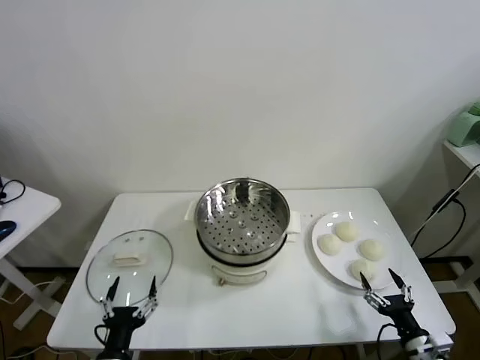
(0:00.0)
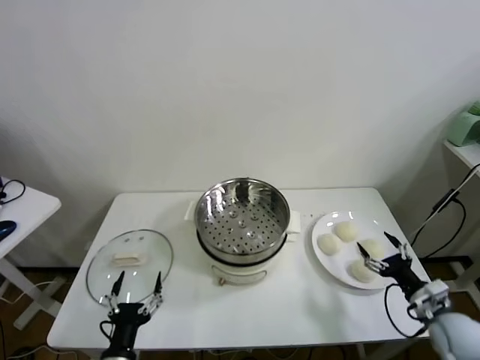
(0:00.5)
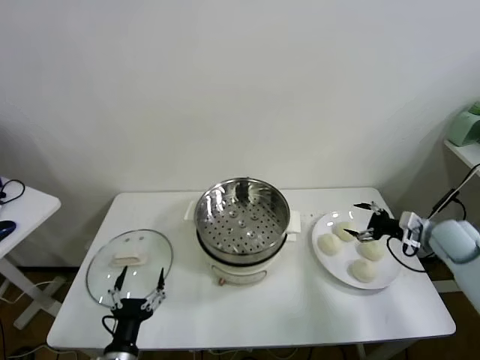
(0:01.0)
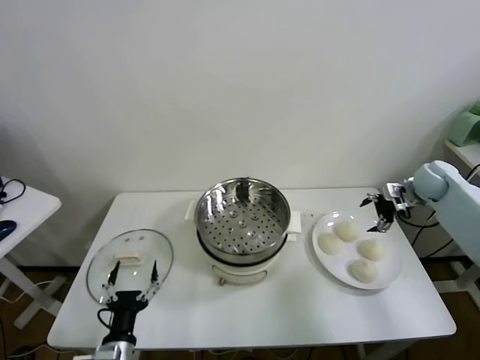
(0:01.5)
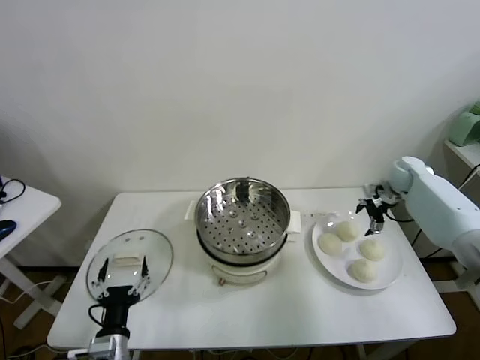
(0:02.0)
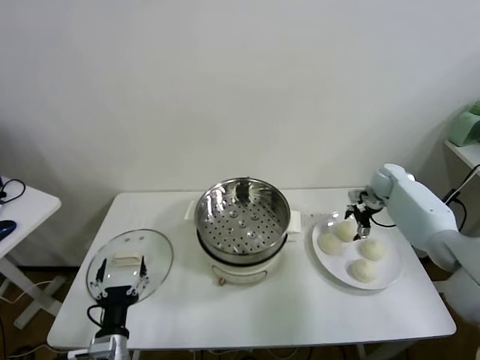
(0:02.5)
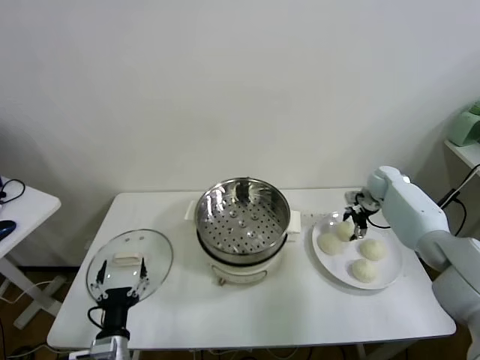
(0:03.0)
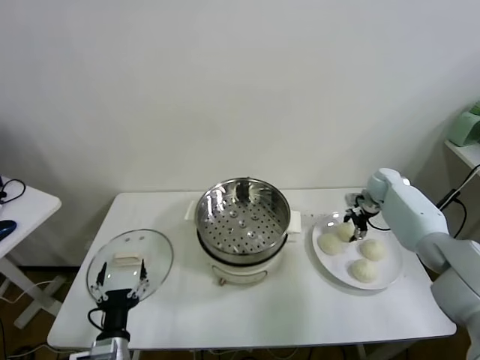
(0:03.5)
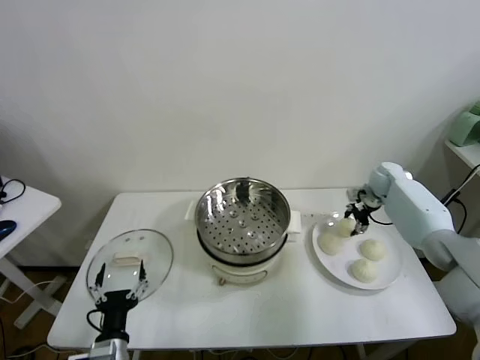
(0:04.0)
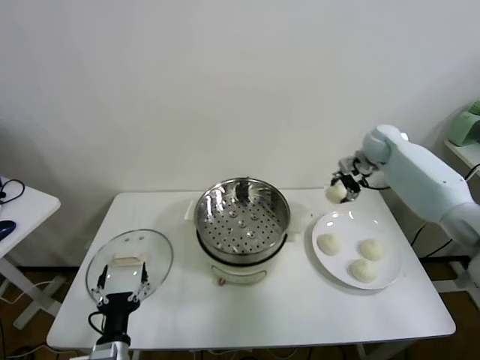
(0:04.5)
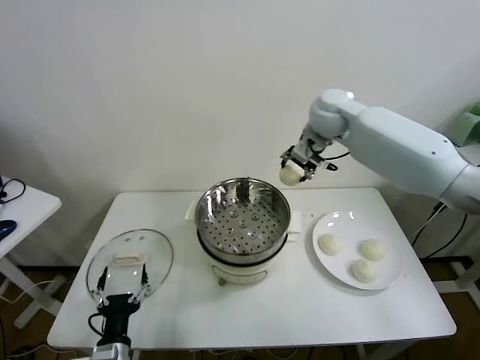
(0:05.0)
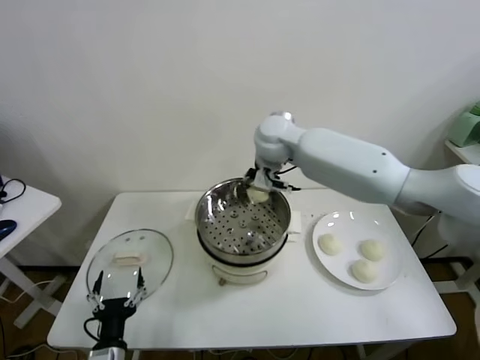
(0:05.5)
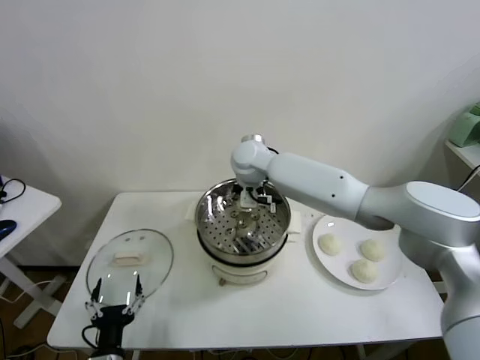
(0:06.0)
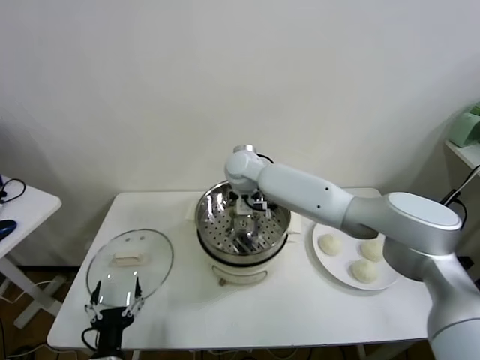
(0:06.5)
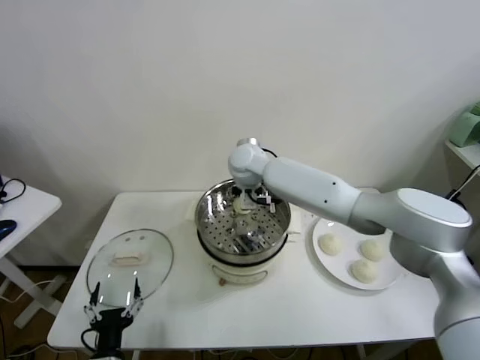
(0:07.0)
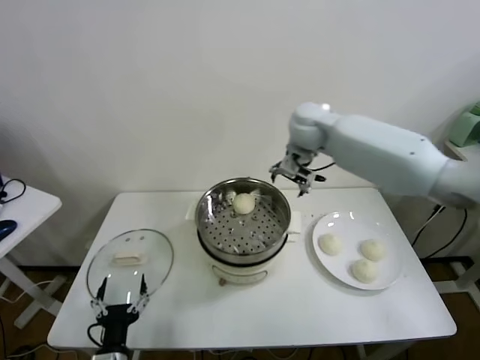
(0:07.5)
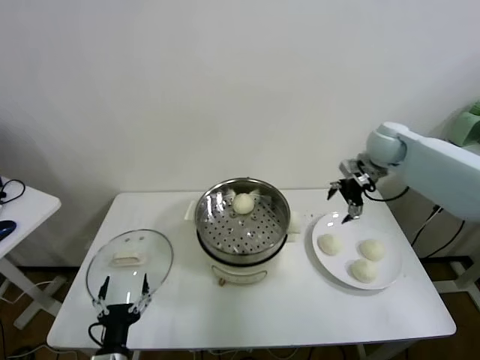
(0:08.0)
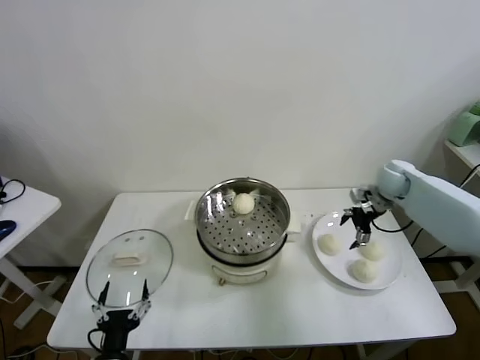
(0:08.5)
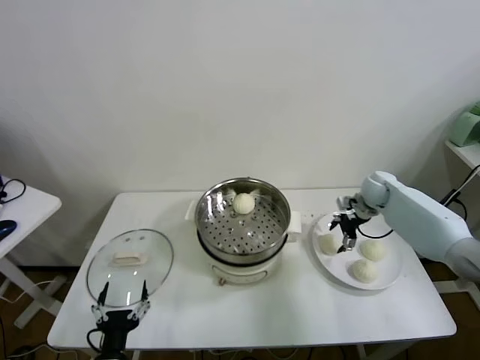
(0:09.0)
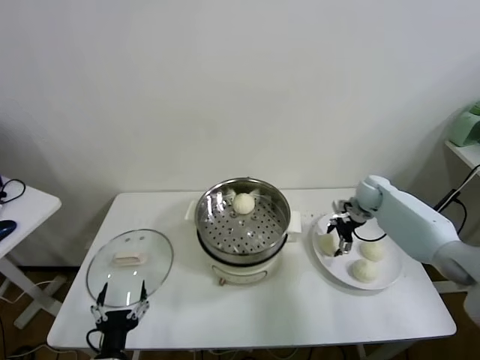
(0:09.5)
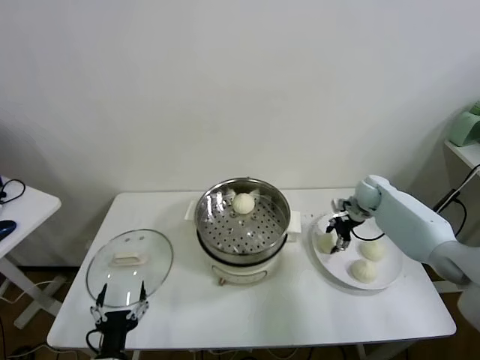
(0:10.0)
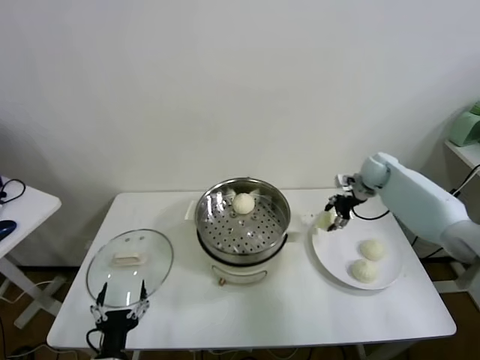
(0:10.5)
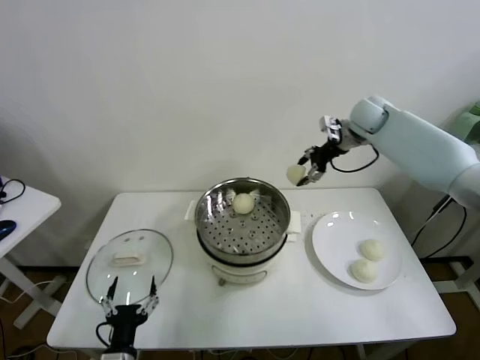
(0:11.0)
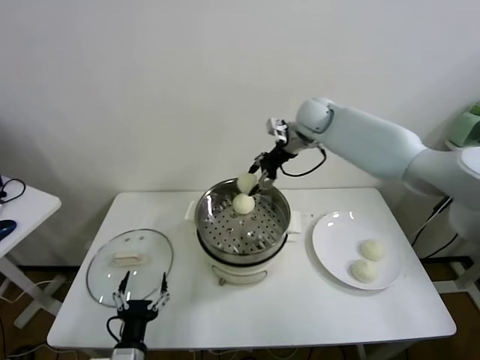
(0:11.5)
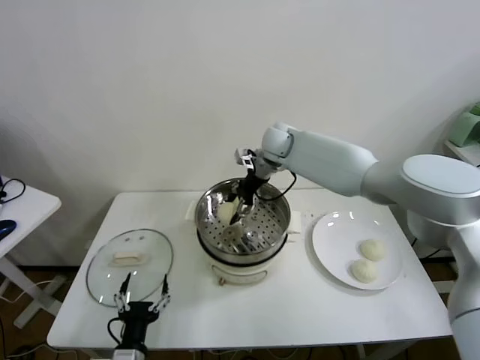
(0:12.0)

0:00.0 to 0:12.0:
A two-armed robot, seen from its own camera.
Task of the whole recording: take steamed baozi put them in steamer.
Step, 0:00.0 to 0:03.0: Grasp the baozi in the plate with right gripper.
Step, 0:03.5 to 0:07.0: Place the baozi on the steamer with right gripper.
Step, 0:07.5 to 0:09.5: Grasp the baozi in the plate with right gripper.
0:02.0 to 0:04.0: The right gripper closes.
0:04.0 to 0:06.0: The right gripper is displaced to the left by some 40 cm.
0:06.0 to 0:08.0: The right gripper moves to the right, roughly 35 cm, and opens.
0:08.0 to 0:10.0: The right gripper moves downward, roughly 15 cm, and closes.
0:10.0 to 0:12.0: The right gripper moves to the left and upward, roughly 30 cm.

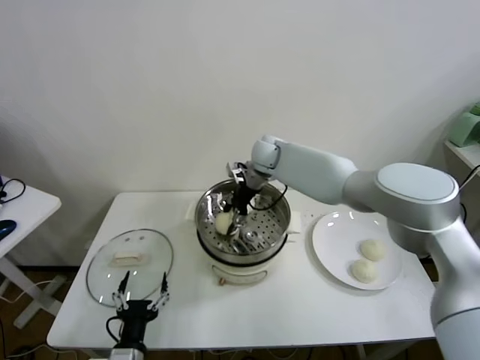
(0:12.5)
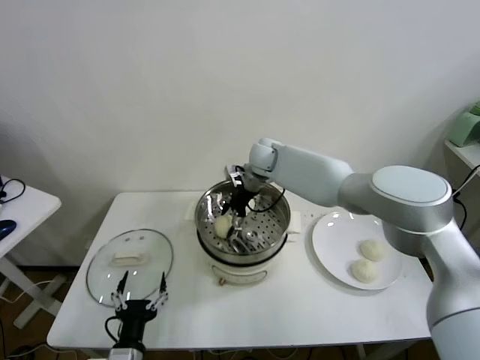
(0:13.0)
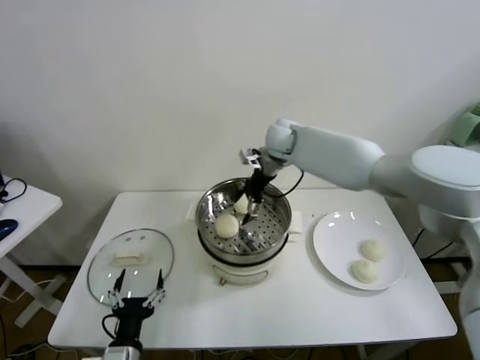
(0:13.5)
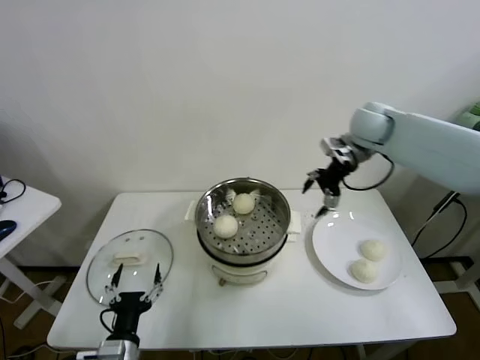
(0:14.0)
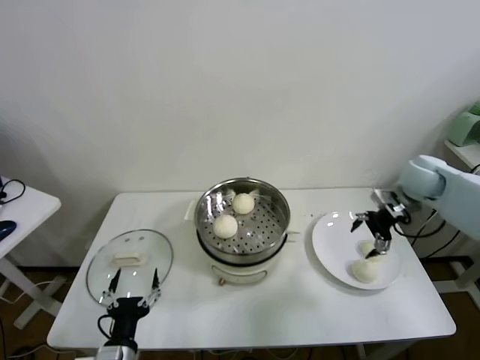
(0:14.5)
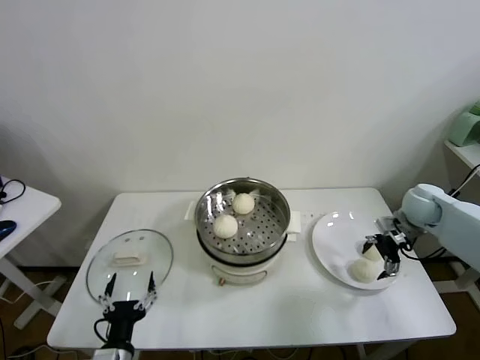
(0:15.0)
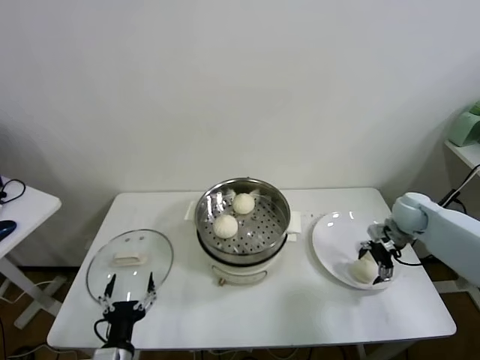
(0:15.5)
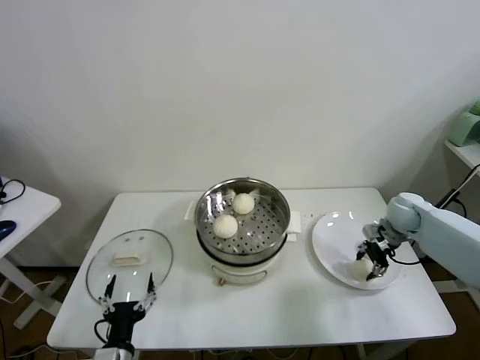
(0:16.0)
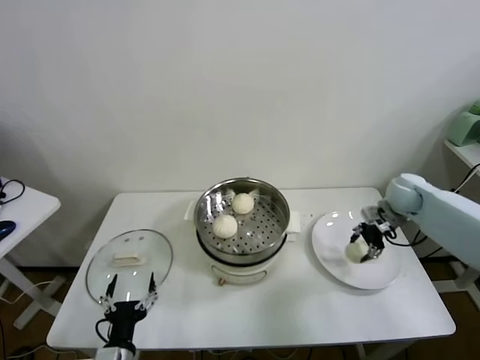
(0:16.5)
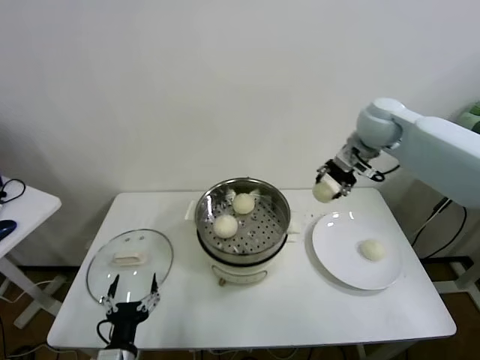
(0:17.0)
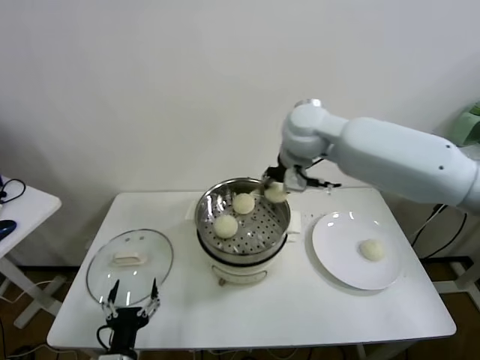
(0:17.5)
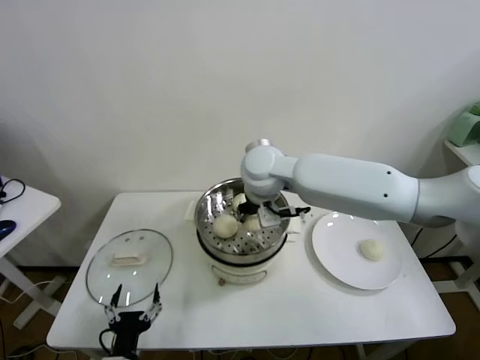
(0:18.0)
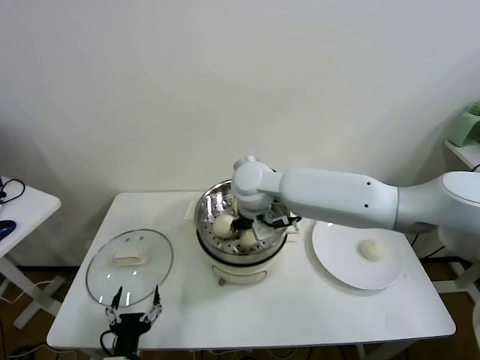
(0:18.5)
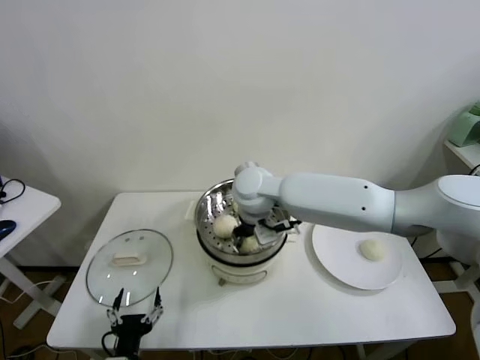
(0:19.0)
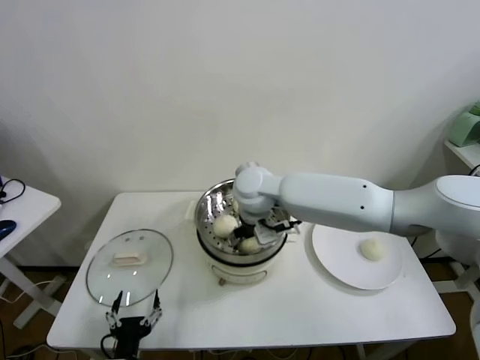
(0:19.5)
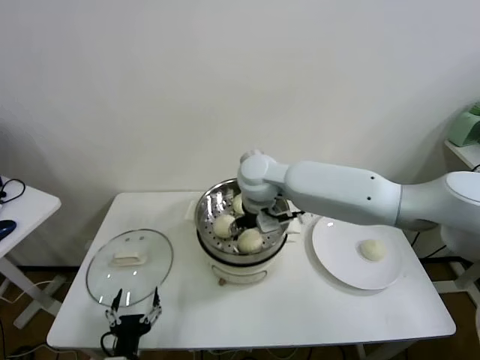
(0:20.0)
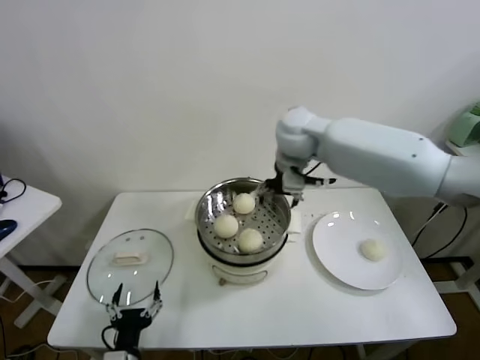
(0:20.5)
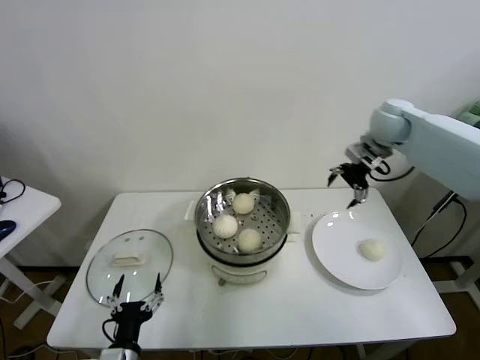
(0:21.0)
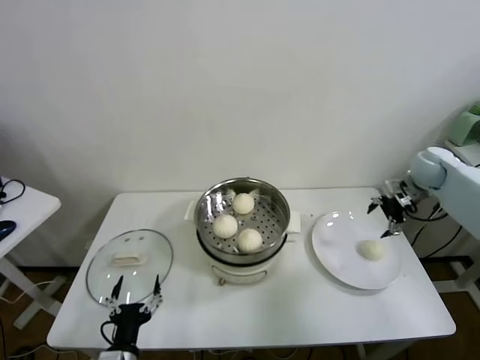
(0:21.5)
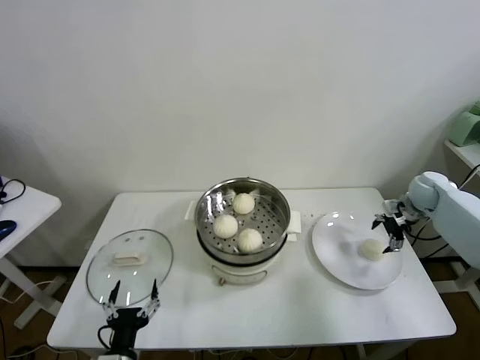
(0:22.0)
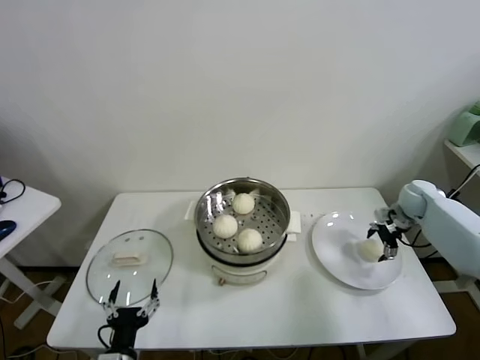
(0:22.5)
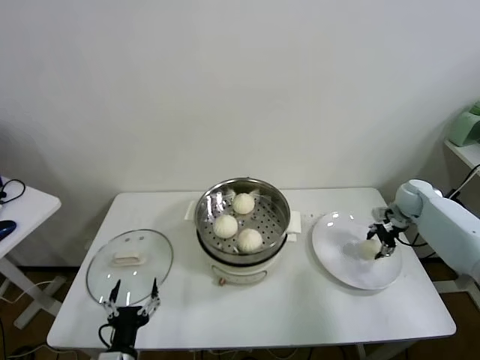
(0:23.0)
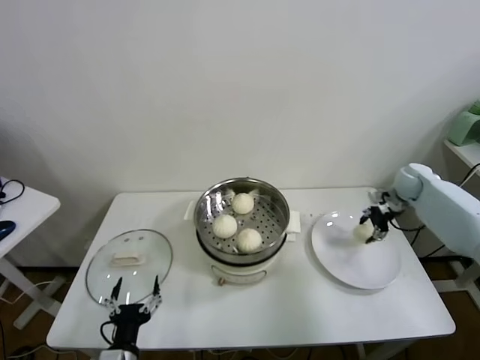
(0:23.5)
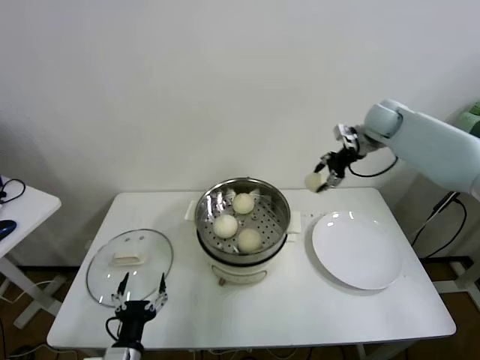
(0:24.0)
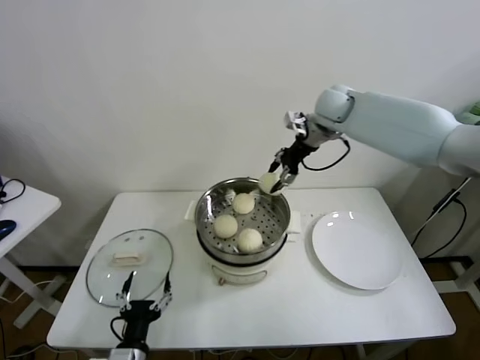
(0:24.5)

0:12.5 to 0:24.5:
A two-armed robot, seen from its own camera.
Task of the whole recording: take steamed baozi put them in steamer.
Step, 0:13.5 to 0:15.5: Grasp the baozi in the plate with right gripper.
Step, 0:16.5 to 0:19.5: Place the baozi on the steamer with right gripper.
Step, 0:20.0 to 0:22.5: Grasp the baozi in the plate with right gripper.
0:12.5 to 0:14.5: The right gripper moves to the right, some 35 cm, and opens its fingers.
0:14.5 to 0:16.5: The right gripper travels downward by roughly 5 cm, and closes.
0:16.5 to 0:18.5: The right gripper moves to the left, approximately 40 cm.
0:18.5 to 0:20.5: The right gripper is displaced to the right, upward and forward by roughly 15 cm, and opens up.
0:20.5 to 0:22.5: The right gripper shifts roughly 40 cm to the right and downward.
0:22.5 to 0:24.5: The right gripper shifts about 35 cm to the left and upward, and closes up.

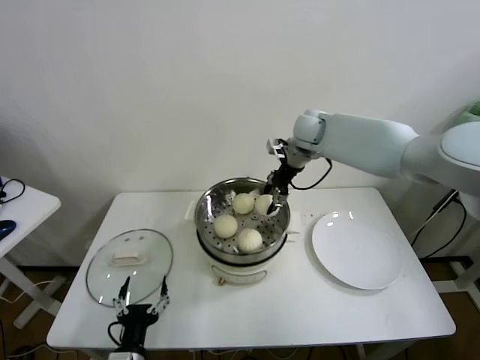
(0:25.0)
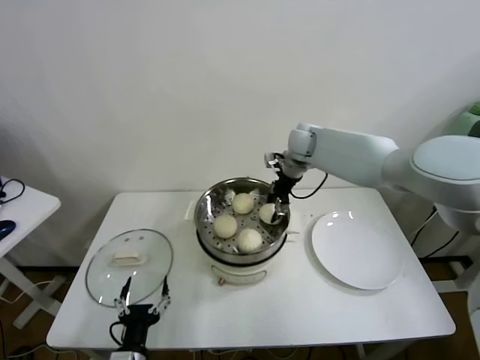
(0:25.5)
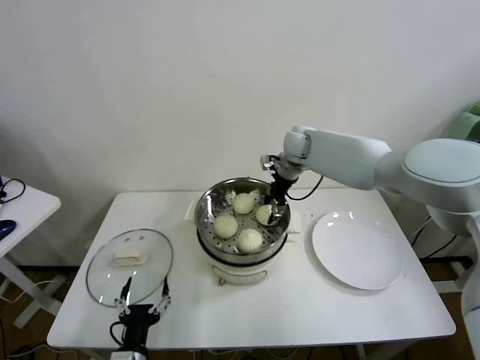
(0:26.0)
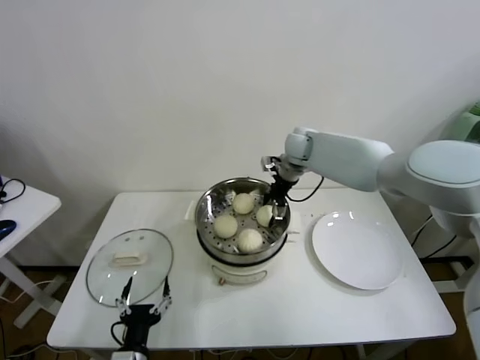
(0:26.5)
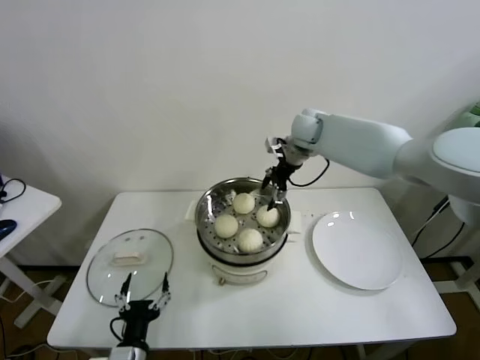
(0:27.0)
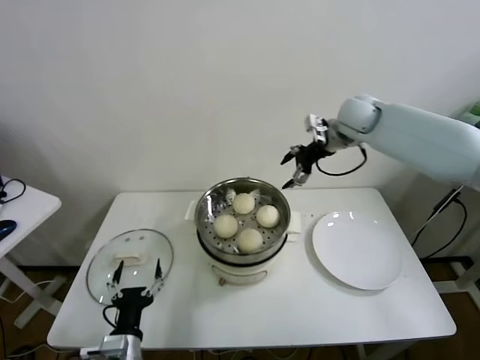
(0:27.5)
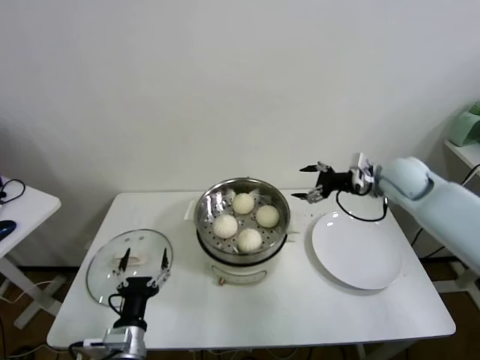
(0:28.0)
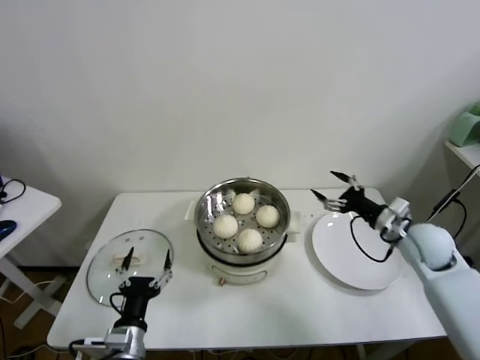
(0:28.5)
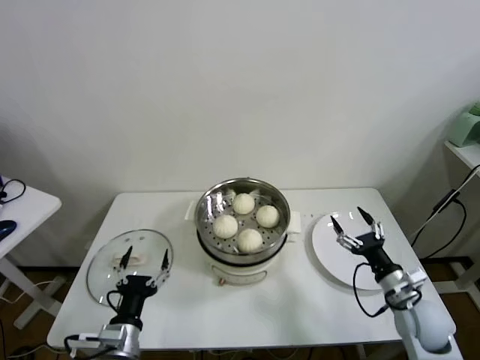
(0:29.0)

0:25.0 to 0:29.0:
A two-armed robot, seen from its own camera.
Task of the whole recording: take steamed baozi put them in steamer.
0:25.0 to 0:27.0: The right gripper opens.
0:27.0 to 0:29.0: The left gripper shifts by some 5 cm, while the right gripper is displaced backward, downward and to the right by approximately 50 cm.
